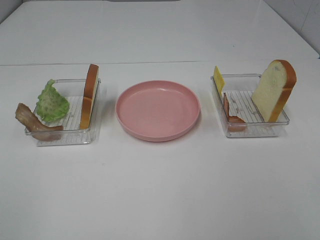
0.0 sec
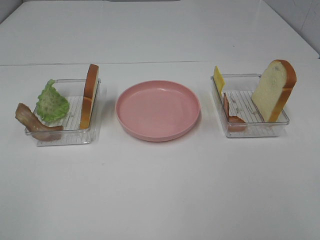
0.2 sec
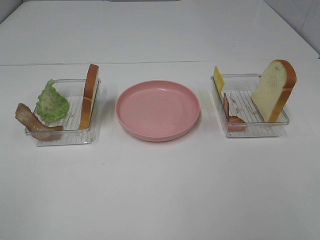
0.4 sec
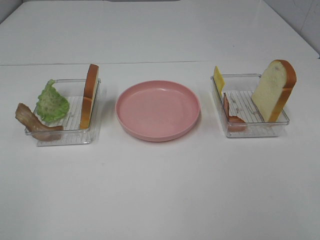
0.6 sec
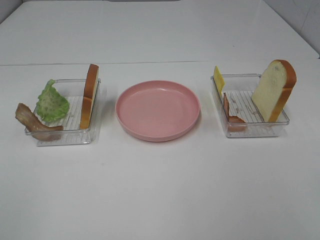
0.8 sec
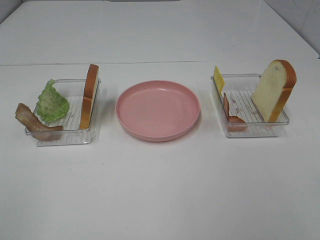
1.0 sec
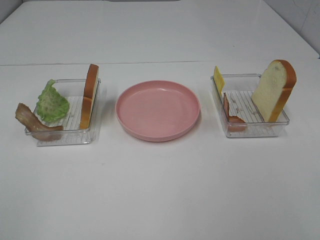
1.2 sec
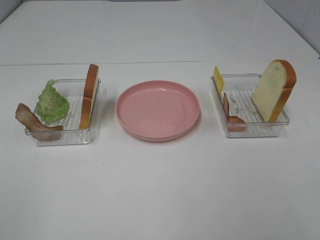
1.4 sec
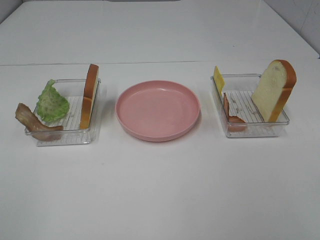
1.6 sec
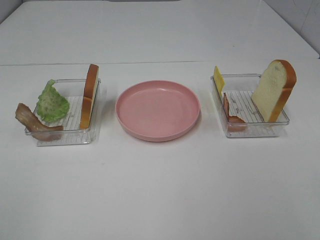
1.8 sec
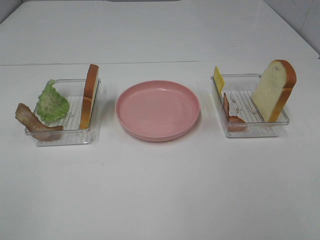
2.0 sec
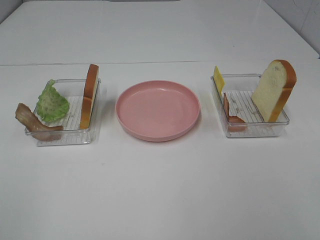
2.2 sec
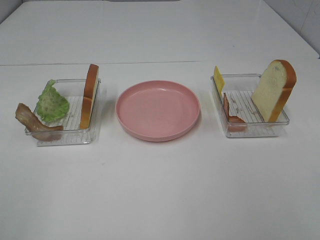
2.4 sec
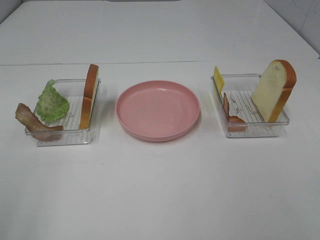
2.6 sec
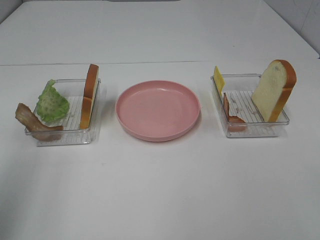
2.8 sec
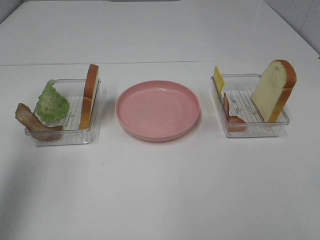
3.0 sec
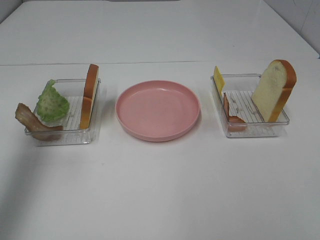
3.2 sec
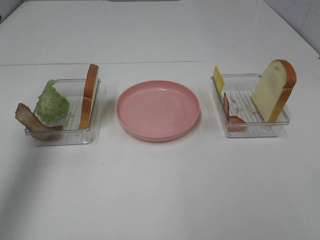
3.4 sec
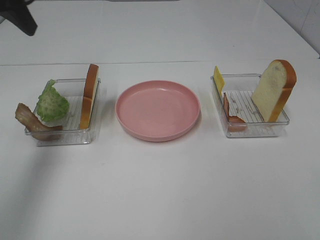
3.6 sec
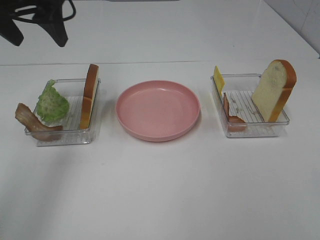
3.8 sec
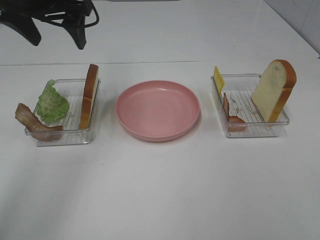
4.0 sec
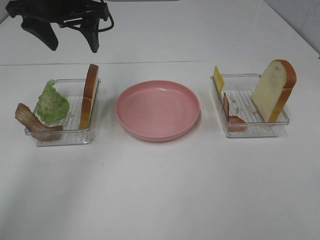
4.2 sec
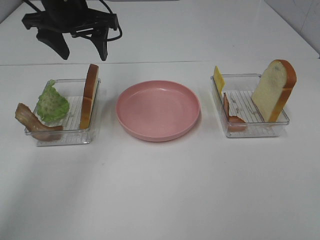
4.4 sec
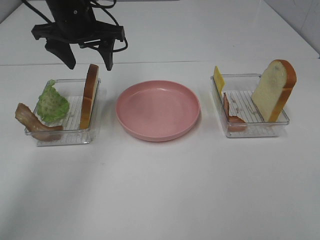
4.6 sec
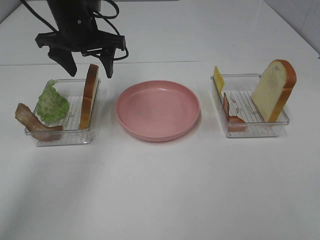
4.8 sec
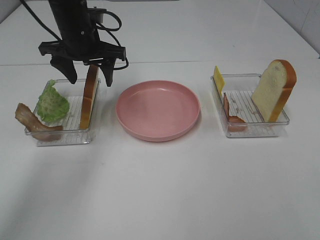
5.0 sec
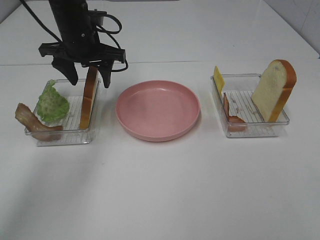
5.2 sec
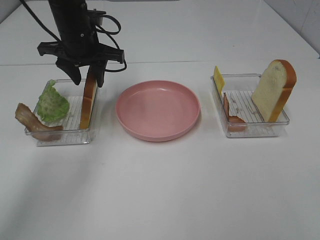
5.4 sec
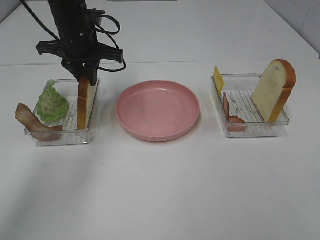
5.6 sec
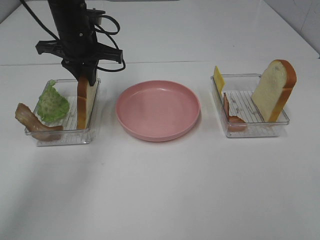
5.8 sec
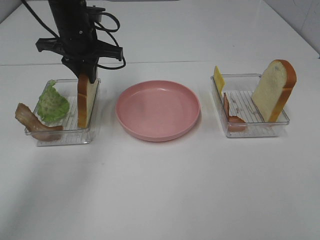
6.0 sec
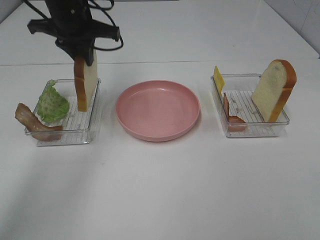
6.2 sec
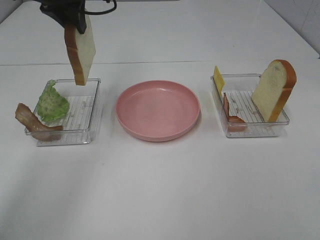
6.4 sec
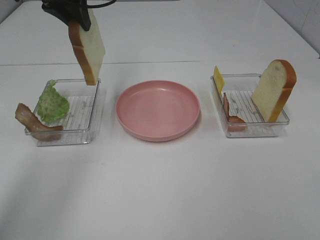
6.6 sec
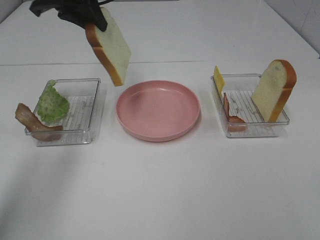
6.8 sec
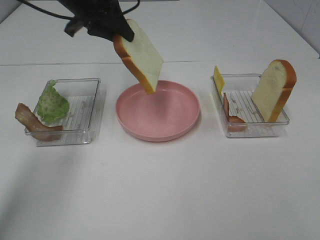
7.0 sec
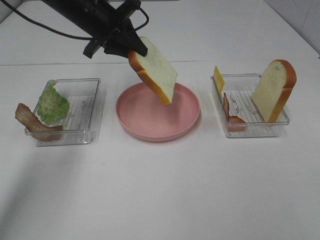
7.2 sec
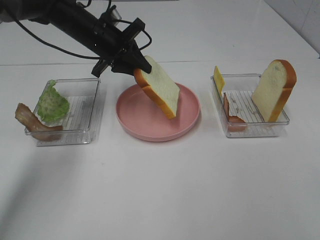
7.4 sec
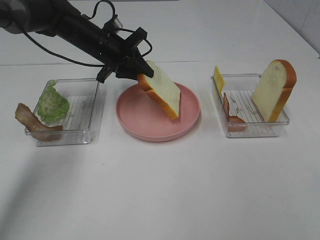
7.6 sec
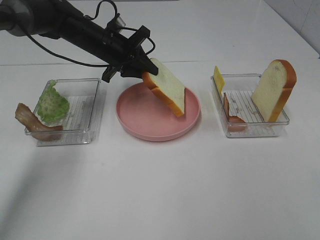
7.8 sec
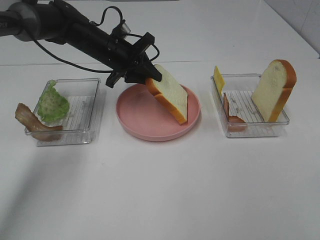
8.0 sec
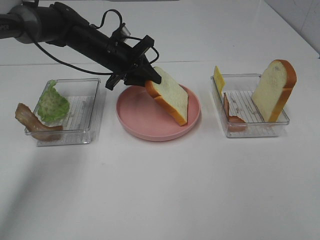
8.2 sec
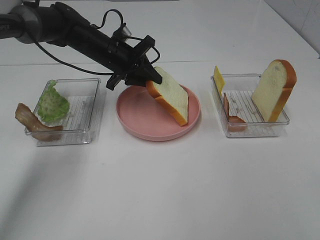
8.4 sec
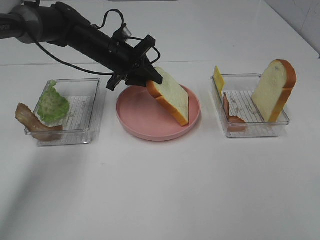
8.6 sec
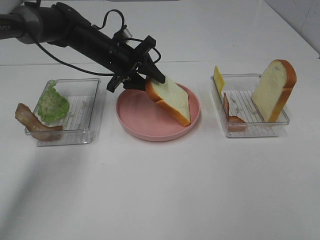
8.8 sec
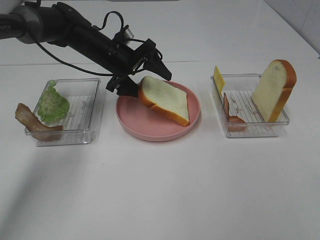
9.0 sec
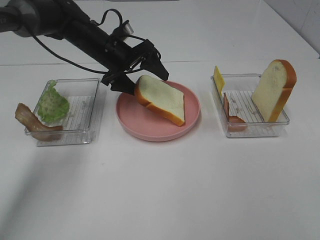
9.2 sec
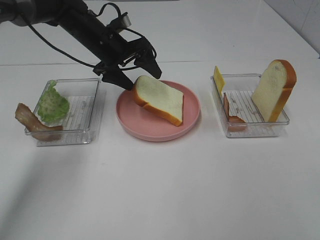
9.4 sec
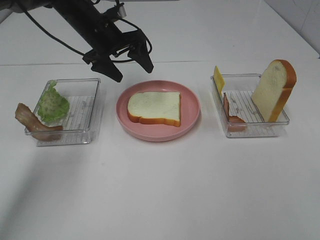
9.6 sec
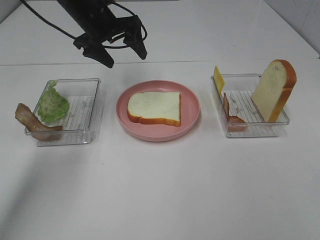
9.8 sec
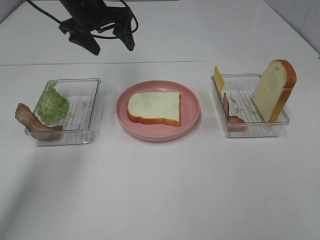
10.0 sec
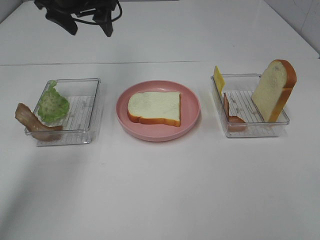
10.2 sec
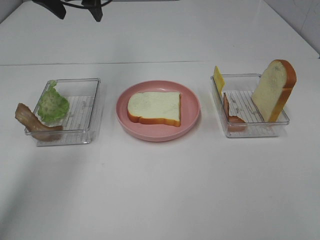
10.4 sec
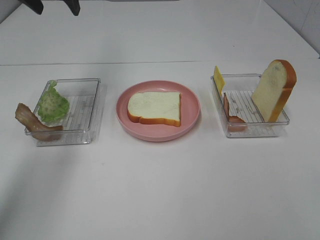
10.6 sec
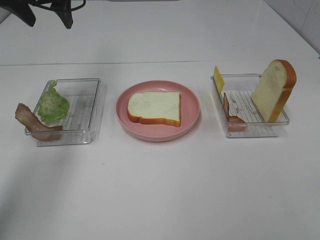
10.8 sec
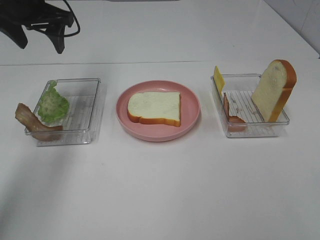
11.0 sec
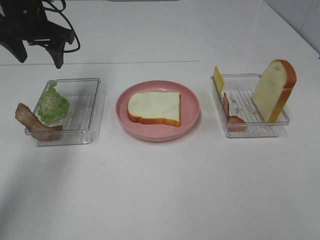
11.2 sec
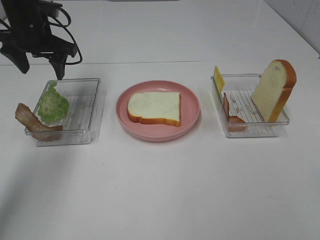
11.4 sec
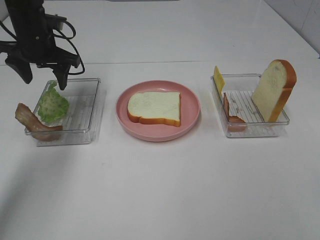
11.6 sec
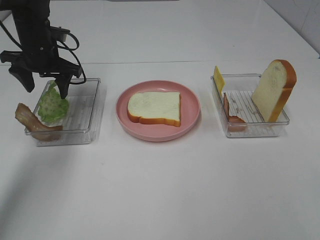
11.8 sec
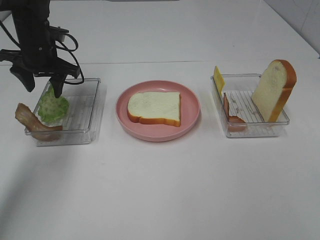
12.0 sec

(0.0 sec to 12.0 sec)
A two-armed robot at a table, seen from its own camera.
Task of the whole recording: Make sandwiches.
Step, 0.0 sec - 5.8 sec: Left hand:grab the bread slice.
Step, 6.0 sec - 9.6 sec: Left hand:place the bread slice on the plate.
0.0 sec - 1.6 sec: Neither gripper changes place.
1.6 sec - 3.0 sec: The left gripper travels forward and upward by about 25 cm.
3.0 sec - 4.4 sec: The left gripper is displaced forward, to the right and downward by some 30 cm.
4.4 sec - 6.0 sec: The left gripper is displaced downward by some 5 cm, and closes its fingers.
6.0 sec - 7.6 sec: The left gripper travels upward and back again, roughly 10 cm each way.
7.6 sec - 9.0 sec: The left gripper opens up.
9.0 sec - 10.4 sec: The left gripper is displaced upward and to the left by about 20 cm.
10.4 sec - 12.0 sec: The left gripper moves downward, roughly 15 cm.

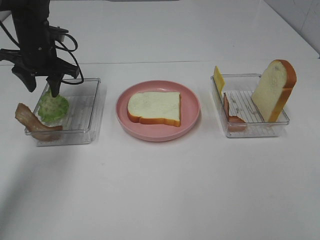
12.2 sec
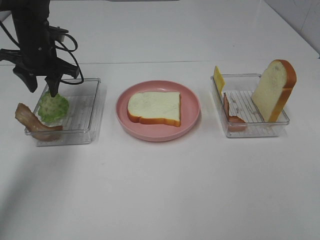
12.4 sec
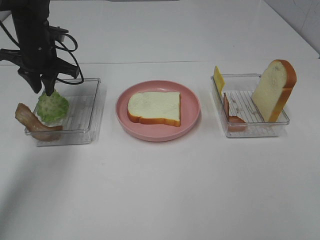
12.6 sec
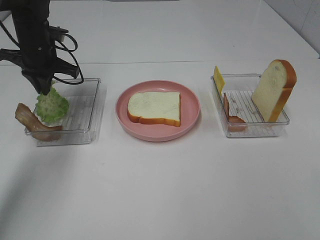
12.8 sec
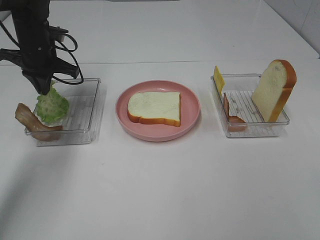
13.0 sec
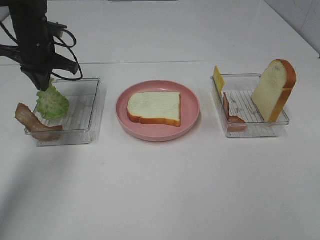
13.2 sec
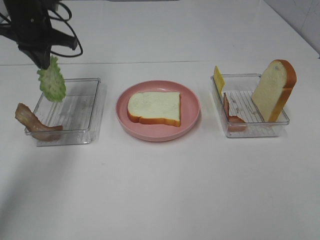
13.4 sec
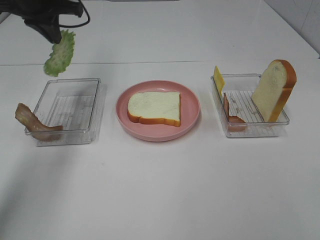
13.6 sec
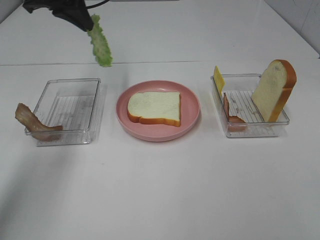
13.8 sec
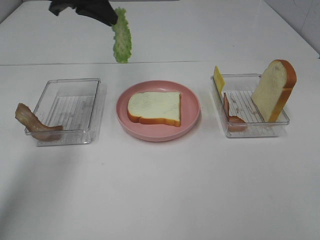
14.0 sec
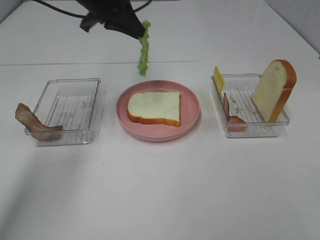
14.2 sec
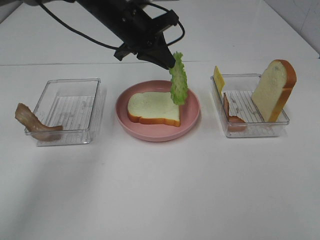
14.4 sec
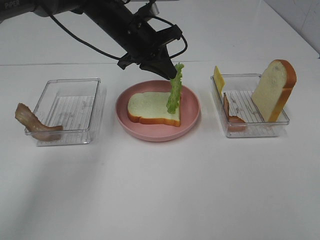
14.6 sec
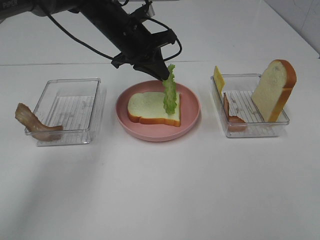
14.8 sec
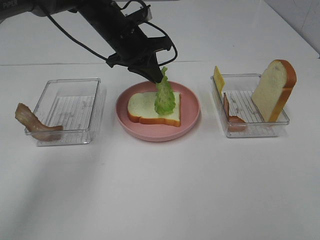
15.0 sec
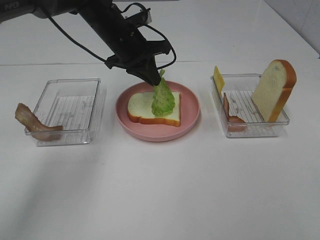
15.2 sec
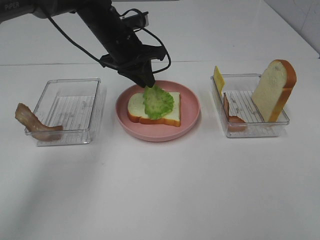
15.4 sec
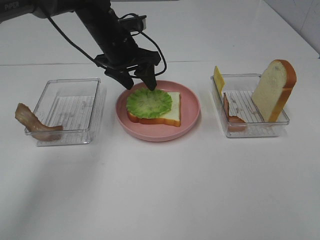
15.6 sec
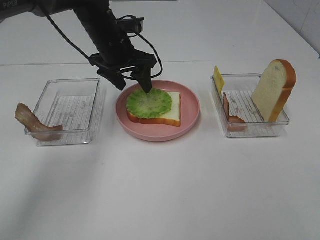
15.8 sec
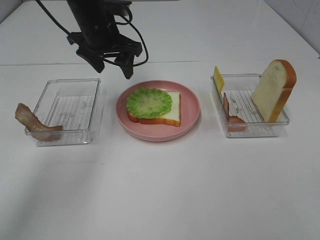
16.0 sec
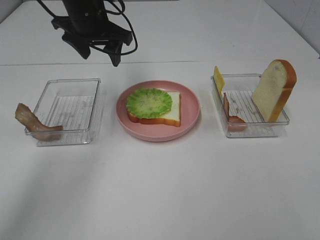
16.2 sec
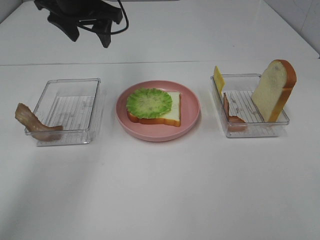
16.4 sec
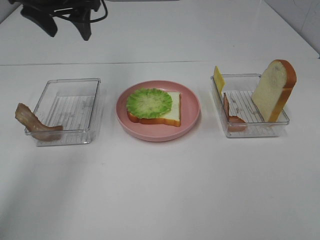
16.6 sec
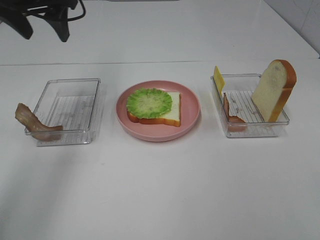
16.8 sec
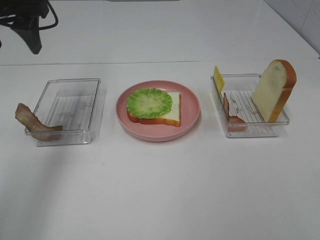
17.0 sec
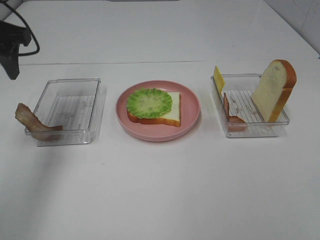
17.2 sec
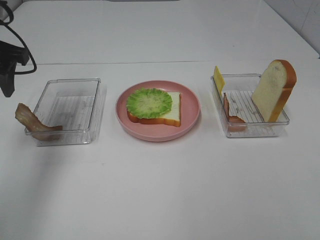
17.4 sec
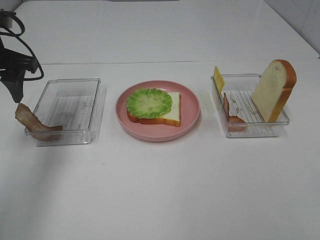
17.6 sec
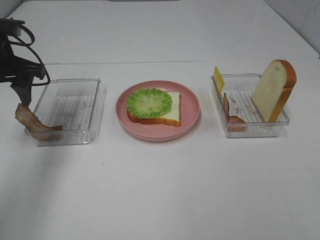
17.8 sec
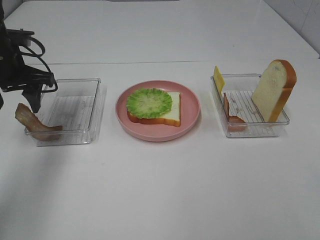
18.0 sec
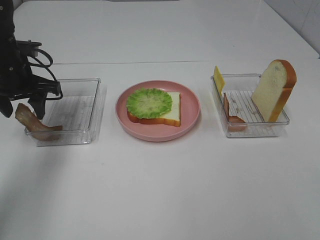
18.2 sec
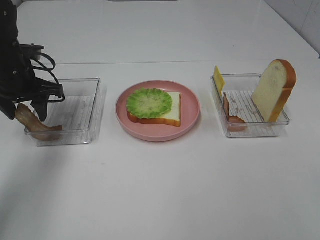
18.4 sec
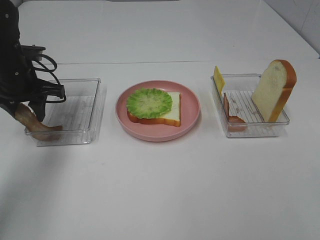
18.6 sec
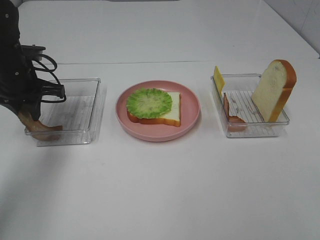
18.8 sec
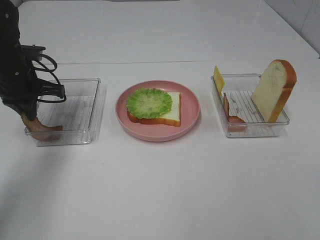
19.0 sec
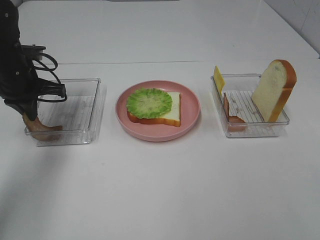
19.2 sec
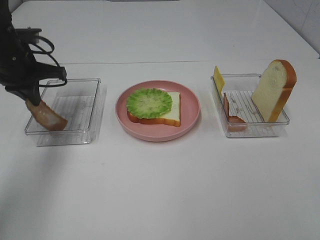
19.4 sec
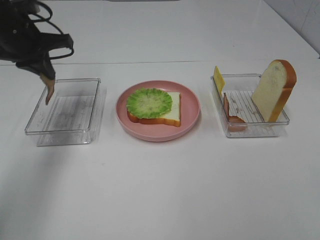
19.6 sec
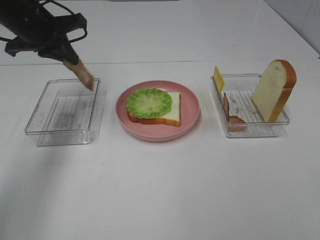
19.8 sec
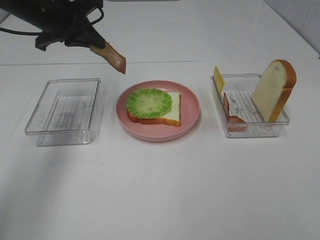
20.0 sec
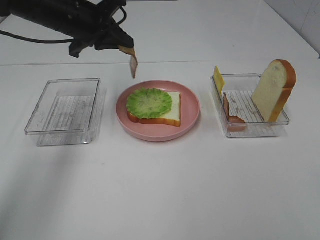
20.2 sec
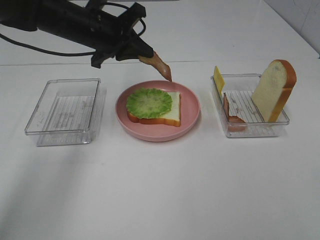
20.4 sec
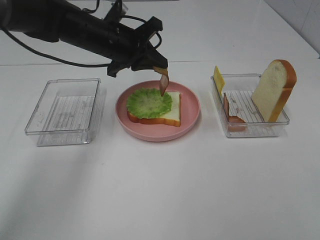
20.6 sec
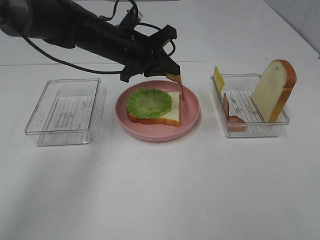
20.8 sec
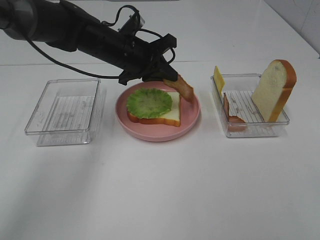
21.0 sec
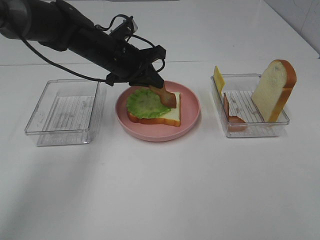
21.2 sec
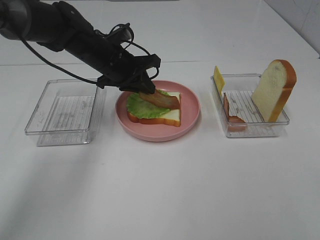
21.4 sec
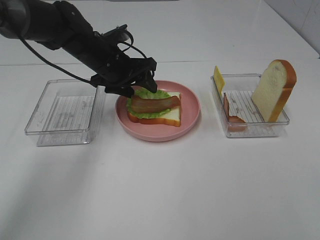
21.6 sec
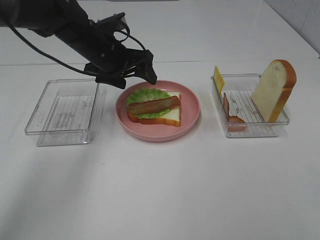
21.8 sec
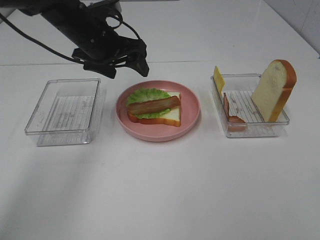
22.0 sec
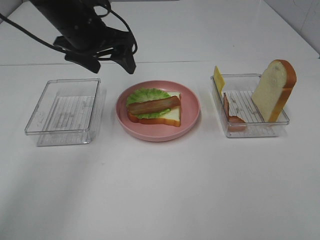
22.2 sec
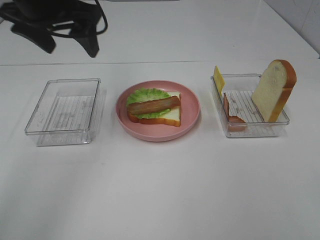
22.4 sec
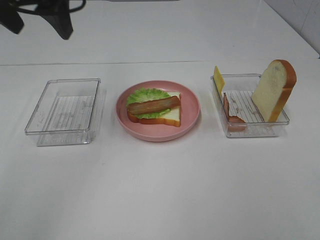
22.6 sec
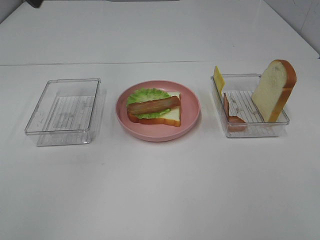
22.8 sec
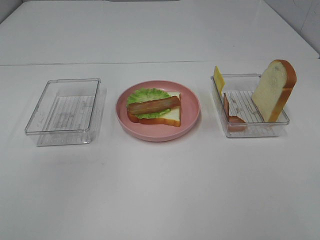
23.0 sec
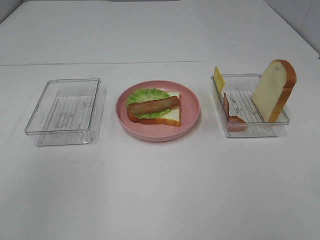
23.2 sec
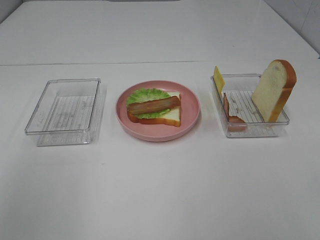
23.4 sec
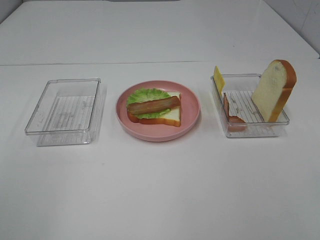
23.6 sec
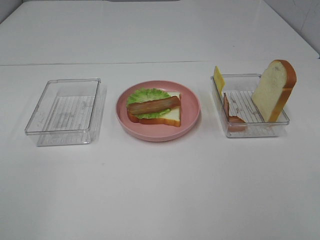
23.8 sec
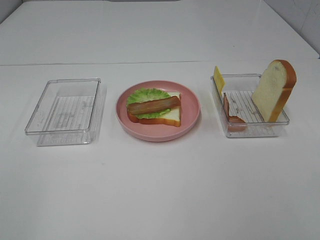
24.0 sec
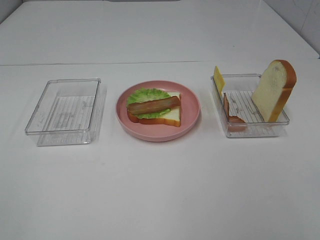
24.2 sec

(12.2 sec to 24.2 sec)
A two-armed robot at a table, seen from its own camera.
Task of the whole recording: Make sandwiches.
Step, 13.4 sec - 15.8 sec: Left hand:place the lettuce slice on the bread slice.
Step, 16.0 sec - 18.8 sec: Left hand:grab the bacon.
Step, 19.0 sec - 21.8 sec: Left hand:place bacon on lettuce slice.
12.2 sec - 13.8 sec: The left gripper moves upward, approximately 15 cm, and closes its fingers.
13.8 sec - 15.2 sec: The left gripper heads downward and to the right, covering approximately 15 cm.
15.2 sec - 16.6 sec: The left gripper goes about 15 cm upward and to the left, and opens up.
16.6 sec - 18.2 sec: The left gripper goes roughly 15 cm downward and to the left.
18.2 sec - 19.8 sec: The left gripper is displaced upward by approximately 10 cm, and closes up.
19.8 sec - 21.2 sec: The left gripper goes about 15 cm to the right and downward.
21.2 sec - 22.6 sec: The left gripper travels upward, backward and to the left by some 25 cm, and opens up.
22.6 sec - 24.2 sec: The left gripper moves backward and to the left, some 40 cm.
